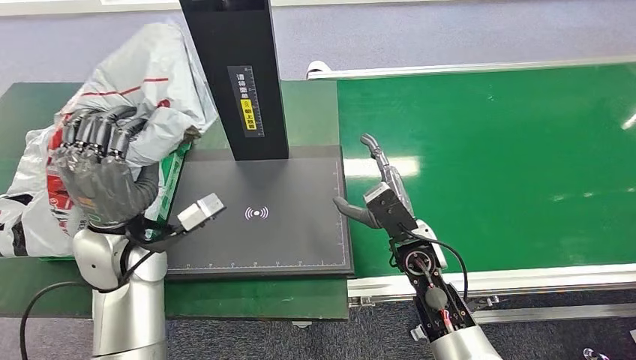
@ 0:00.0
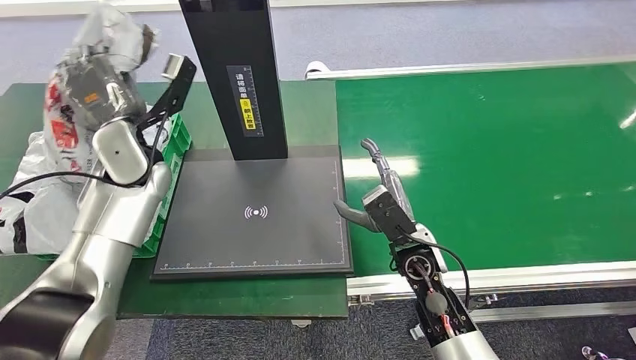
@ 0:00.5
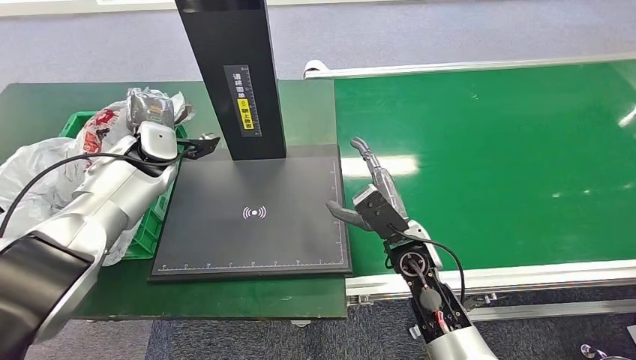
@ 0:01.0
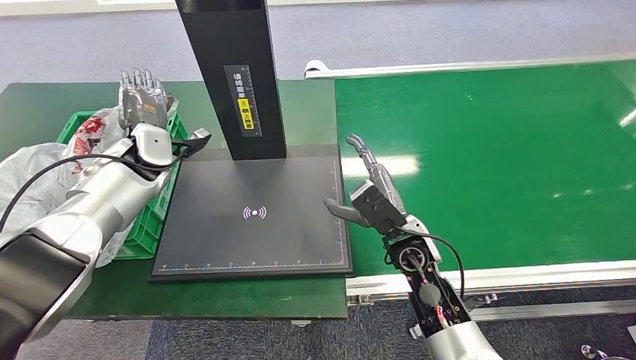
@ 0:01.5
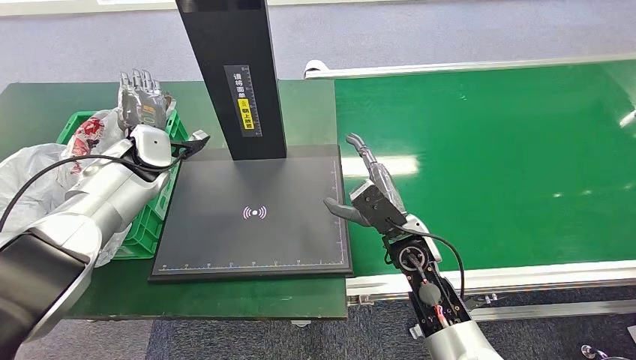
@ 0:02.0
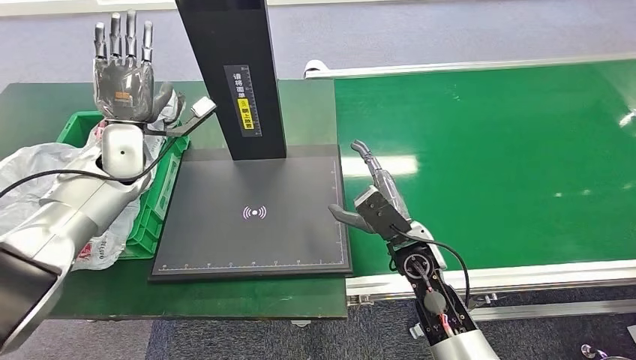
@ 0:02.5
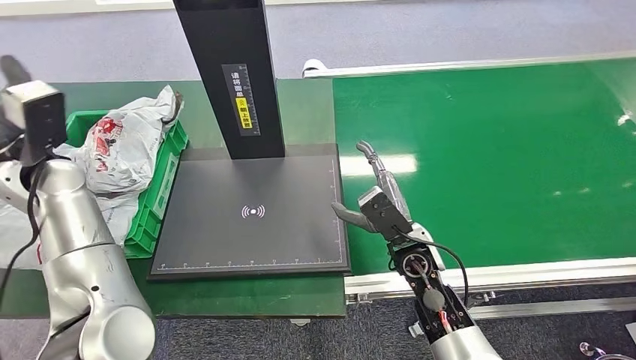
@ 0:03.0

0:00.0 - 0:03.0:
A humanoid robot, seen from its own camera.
Task of the whole recording: Weigh the package on the weighing device and place it in the left basket.
Step, 0:00.5 - 0:03.0: Place the package into the parcel locker.
